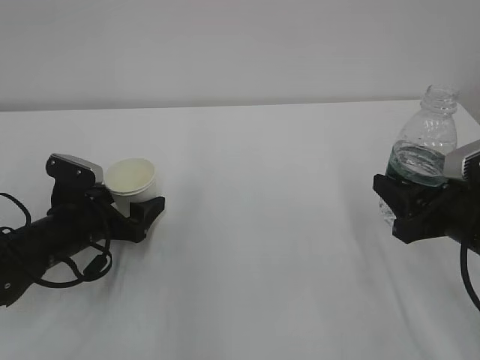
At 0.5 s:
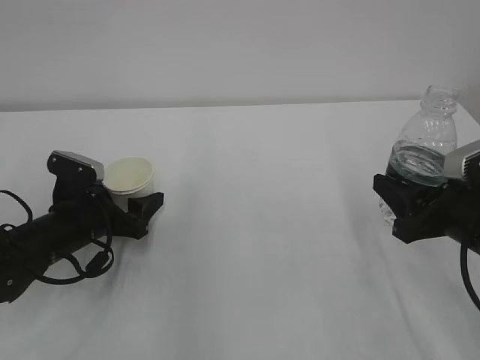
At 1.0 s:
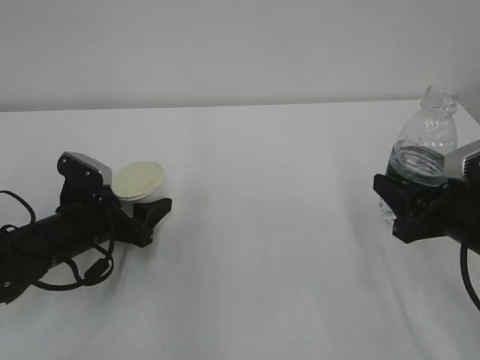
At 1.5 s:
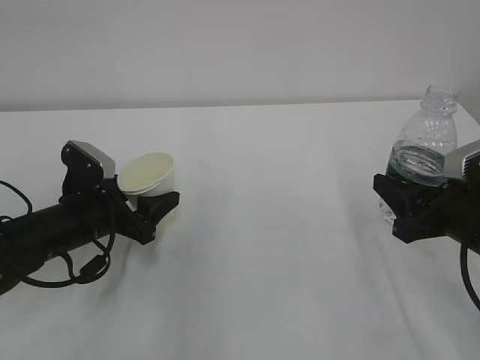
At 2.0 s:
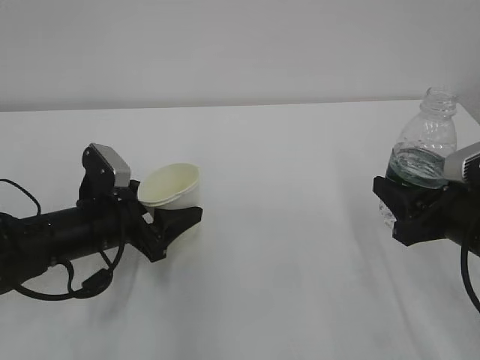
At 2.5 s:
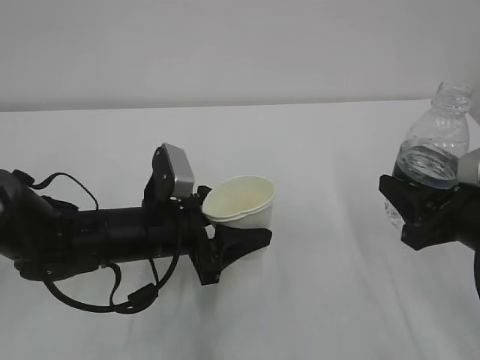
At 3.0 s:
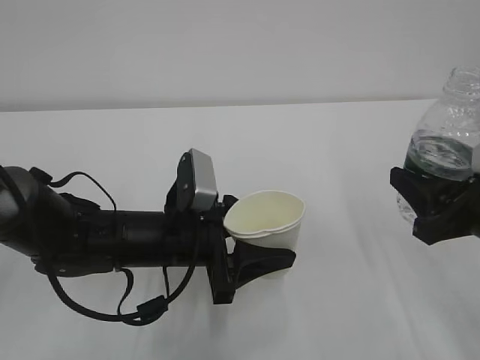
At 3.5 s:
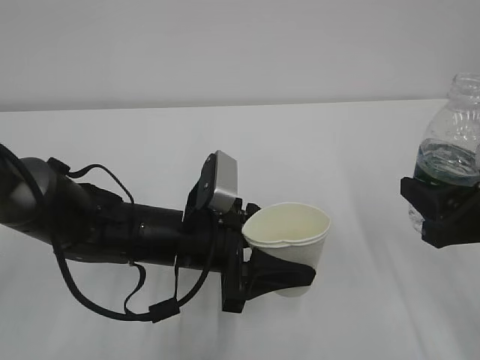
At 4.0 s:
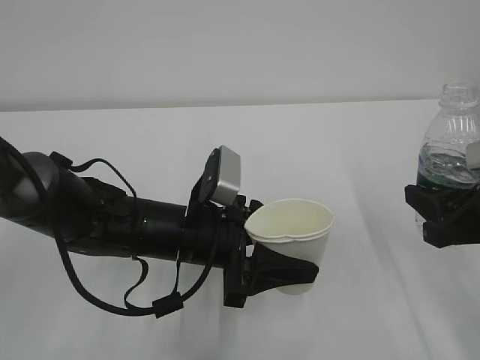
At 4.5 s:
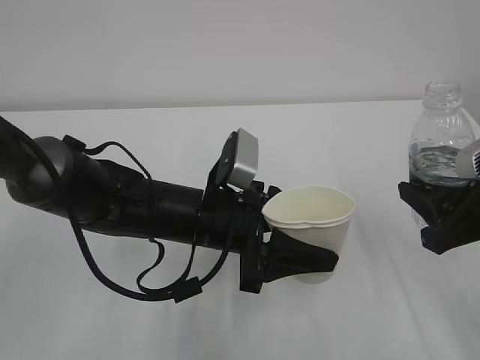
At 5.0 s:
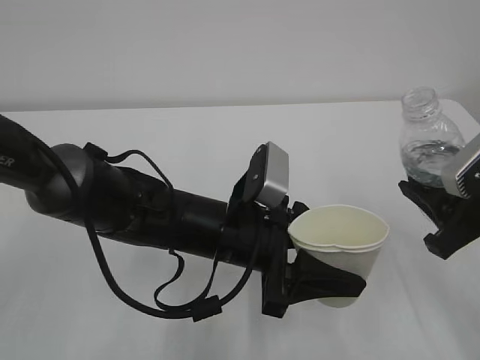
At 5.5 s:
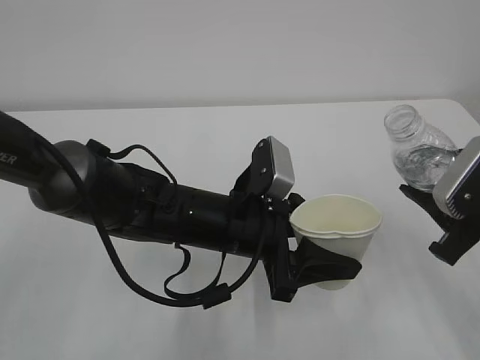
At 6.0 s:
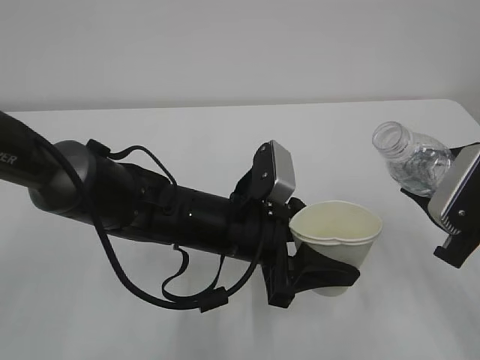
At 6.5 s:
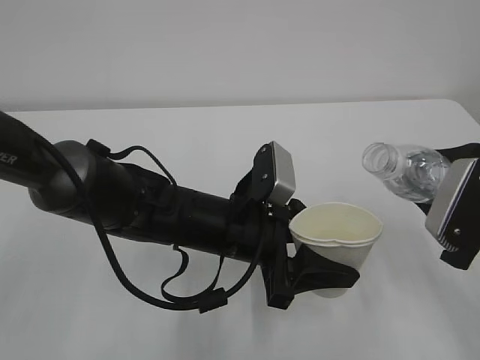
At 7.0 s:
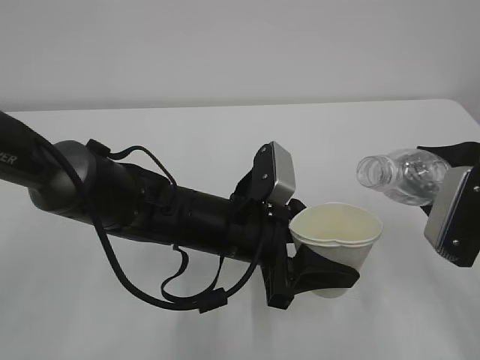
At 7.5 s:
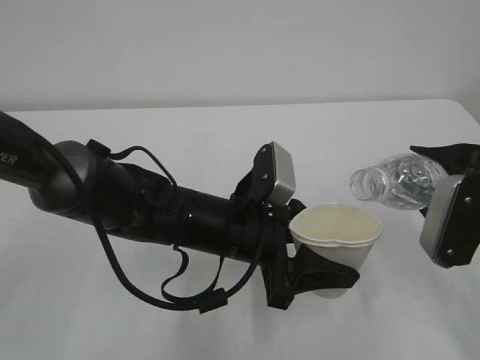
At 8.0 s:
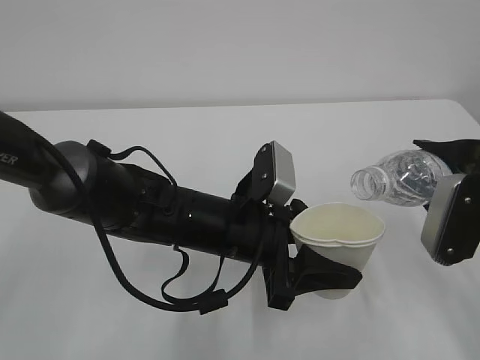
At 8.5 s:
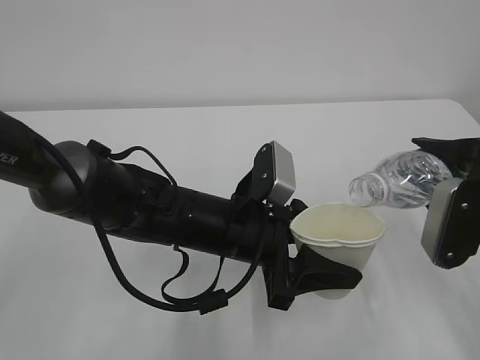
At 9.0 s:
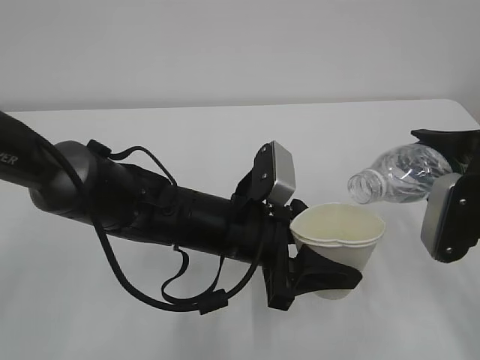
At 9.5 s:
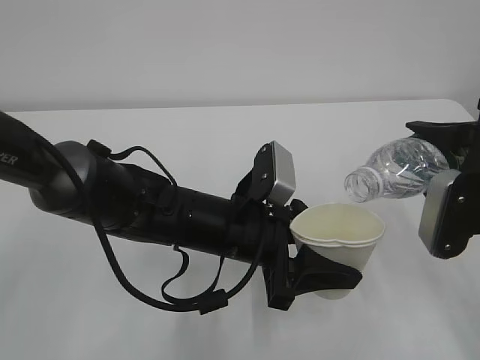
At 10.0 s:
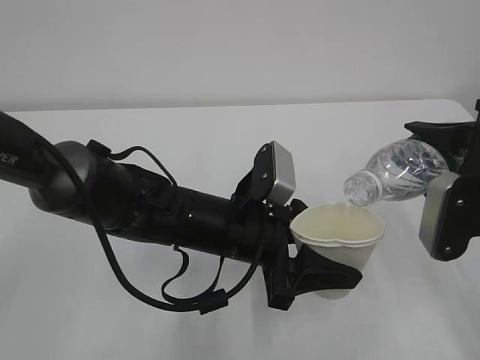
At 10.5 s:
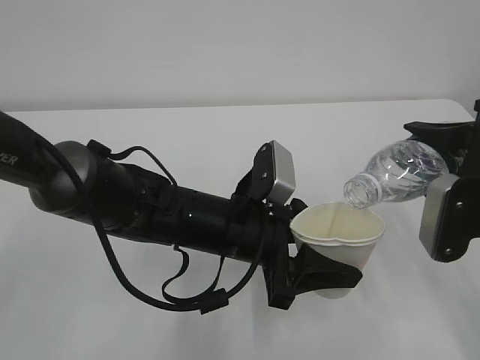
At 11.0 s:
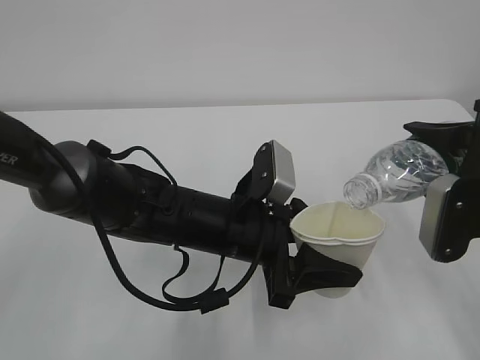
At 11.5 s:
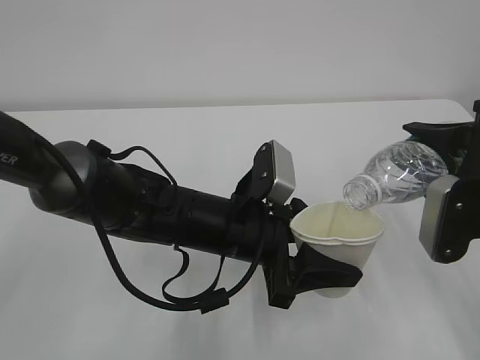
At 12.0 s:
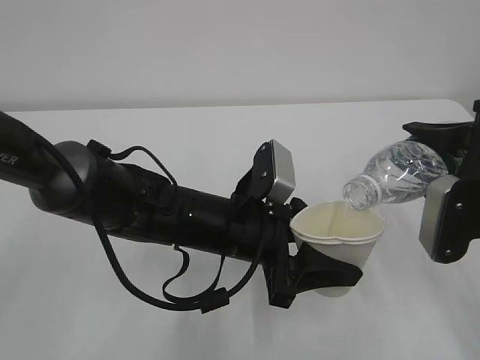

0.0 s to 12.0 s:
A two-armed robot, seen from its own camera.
0.0 to 2.0 s: The left gripper moves about 5 cm, and closes up.
2.0 to 4.0 s: The left gripper goes some 10 cm to the right.
8.0 to 10.0 s: The grippers stay close to where they were, moving slightly.
10.0 to 12.0 s: Both grippers stay put.

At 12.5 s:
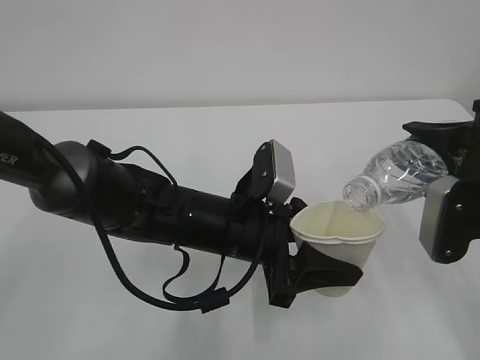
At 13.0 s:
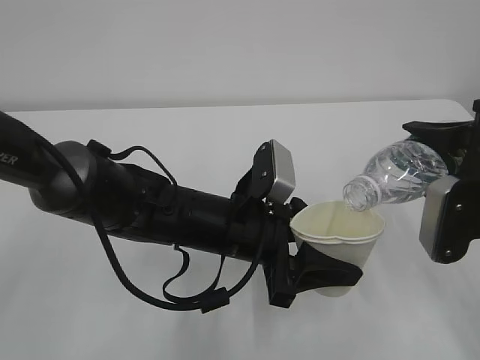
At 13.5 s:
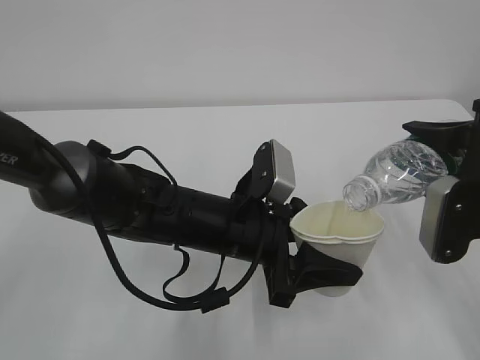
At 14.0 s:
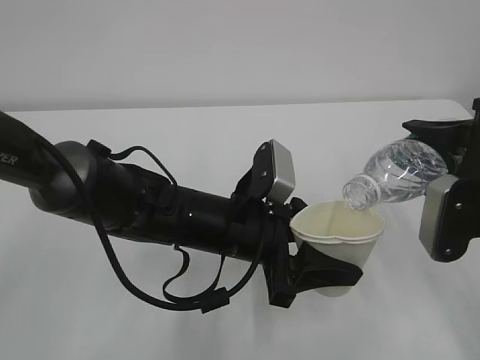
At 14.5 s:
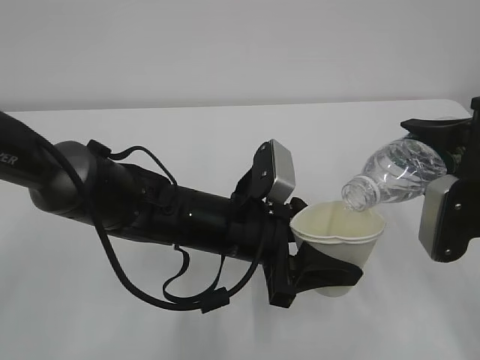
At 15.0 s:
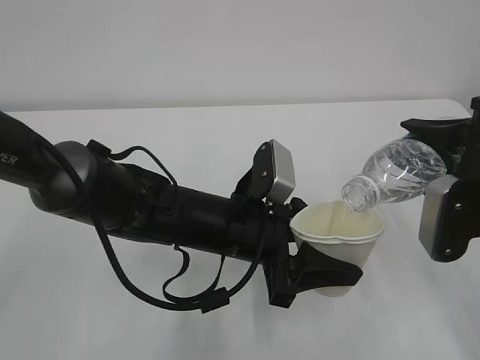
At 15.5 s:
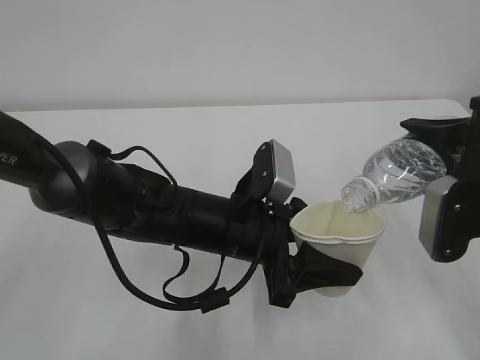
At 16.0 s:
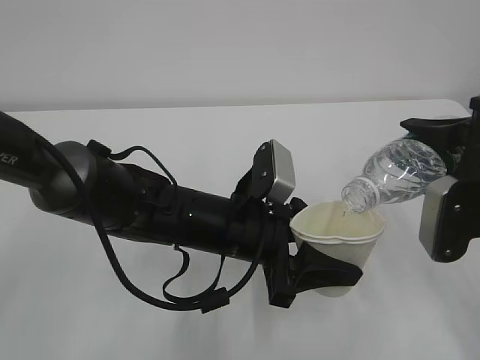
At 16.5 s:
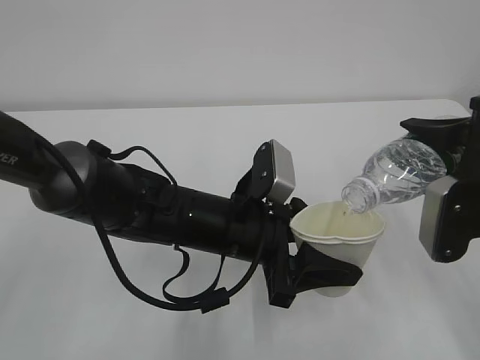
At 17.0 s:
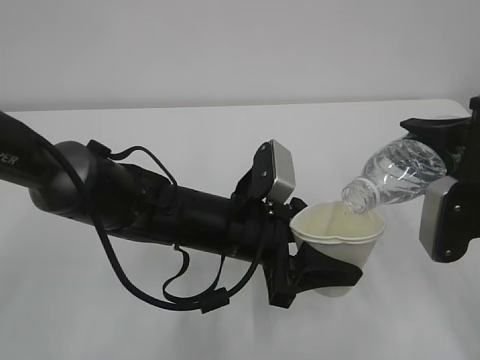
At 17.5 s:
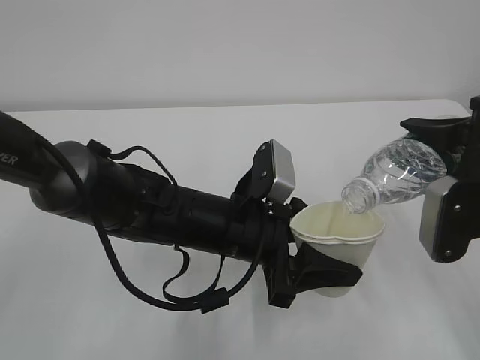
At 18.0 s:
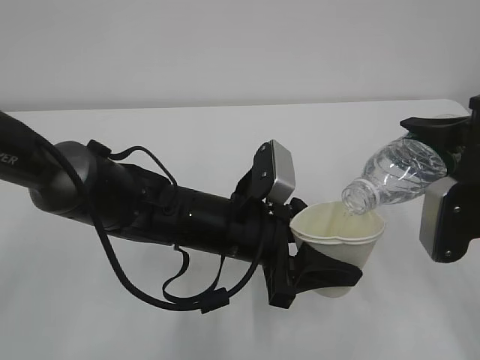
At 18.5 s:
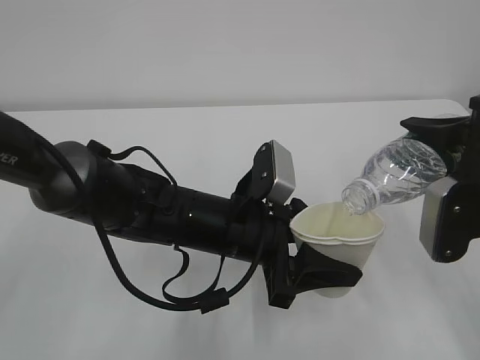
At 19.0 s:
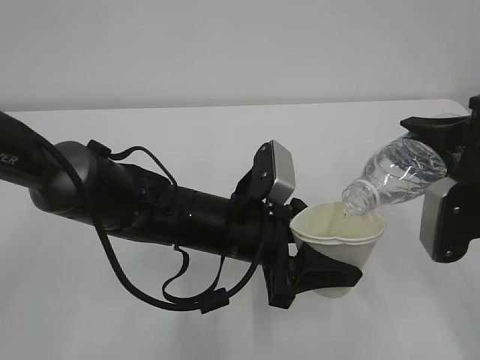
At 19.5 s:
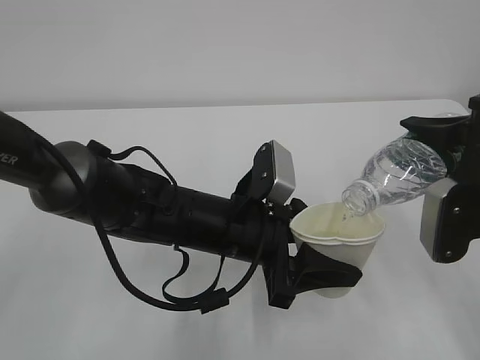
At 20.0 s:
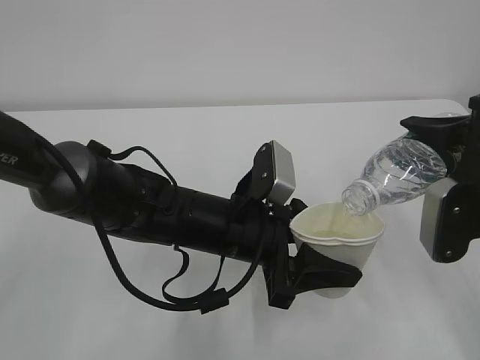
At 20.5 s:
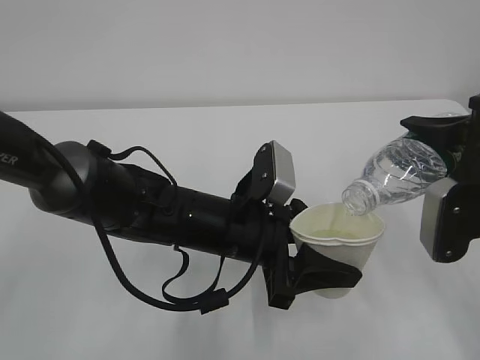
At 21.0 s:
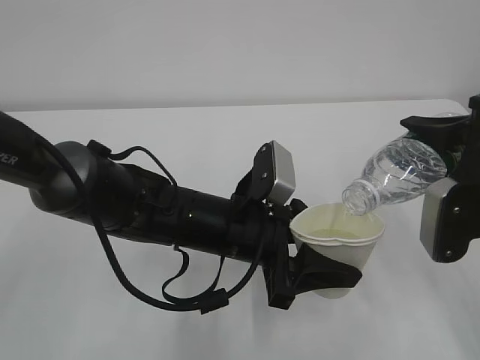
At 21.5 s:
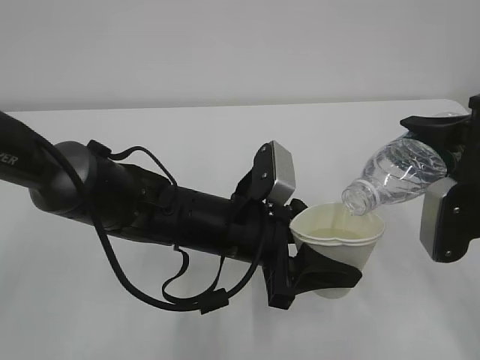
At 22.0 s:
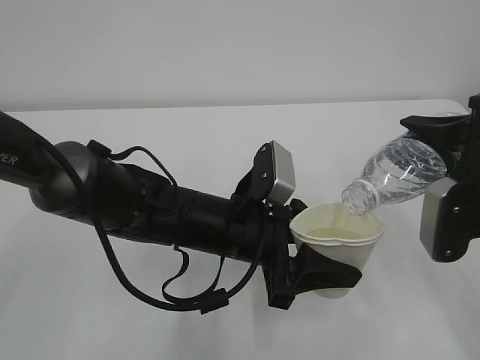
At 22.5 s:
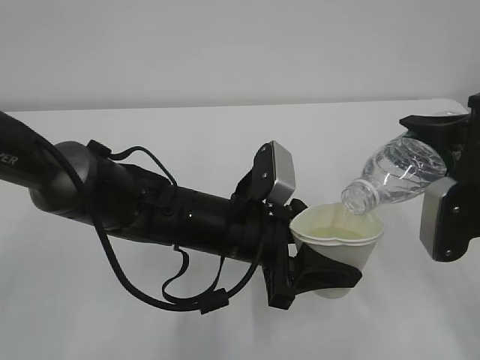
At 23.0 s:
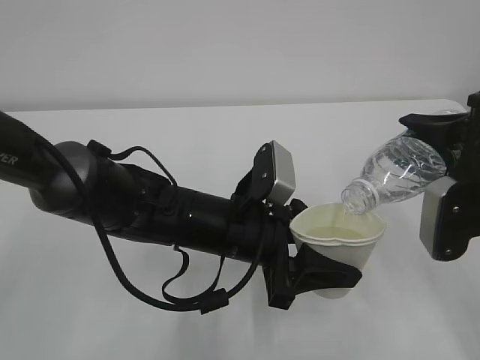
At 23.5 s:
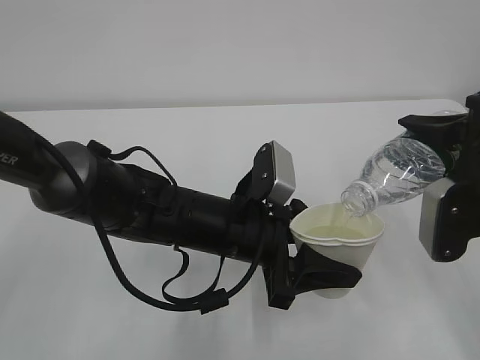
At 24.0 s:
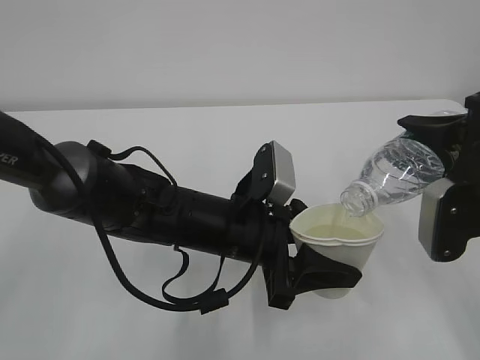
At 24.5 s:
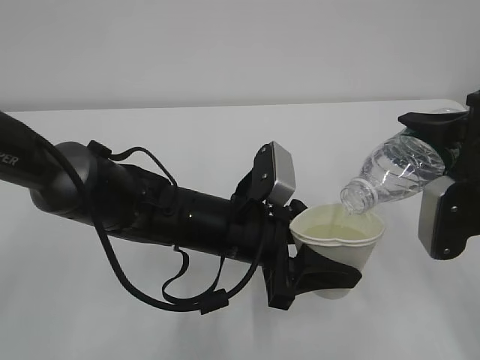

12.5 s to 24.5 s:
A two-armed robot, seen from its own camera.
12.5 to 18.5 s: Neither gripper changes place.
18.5 to 24.5 s: Neither gripper changes place.

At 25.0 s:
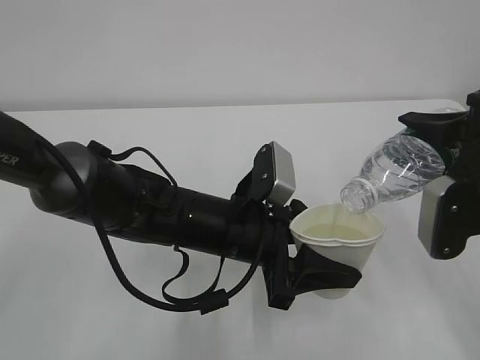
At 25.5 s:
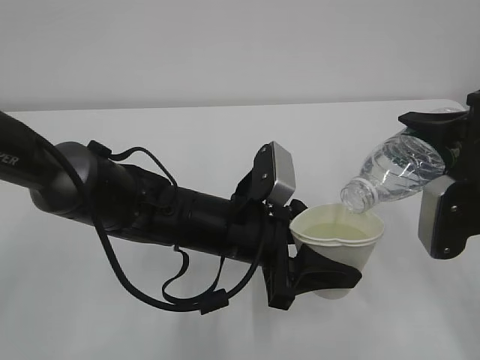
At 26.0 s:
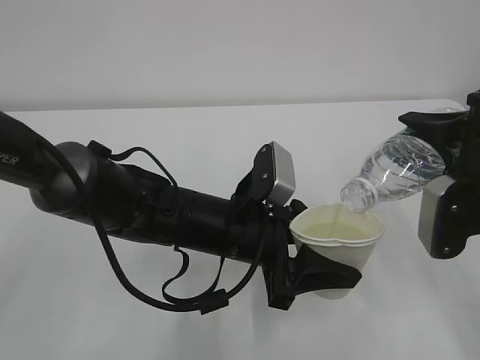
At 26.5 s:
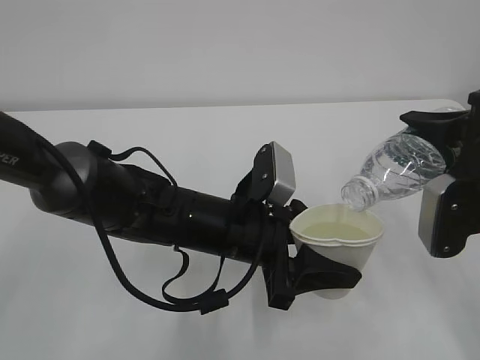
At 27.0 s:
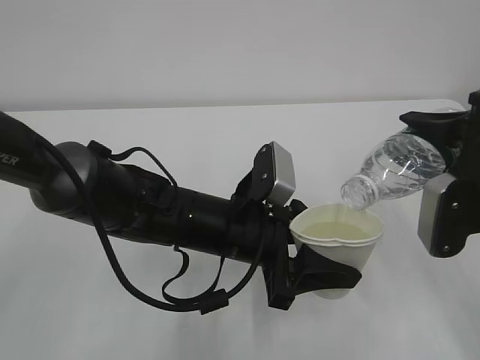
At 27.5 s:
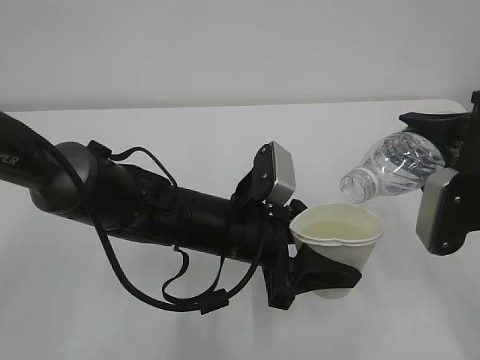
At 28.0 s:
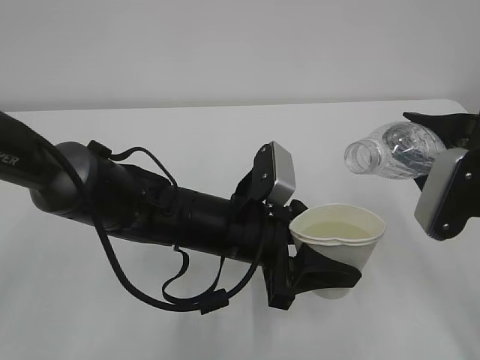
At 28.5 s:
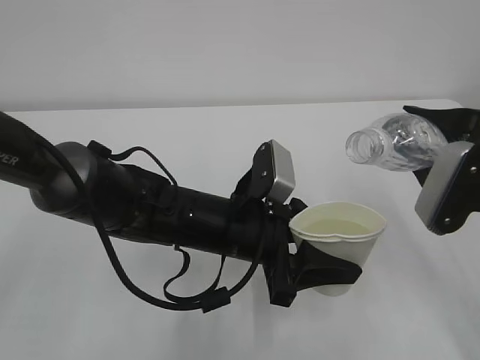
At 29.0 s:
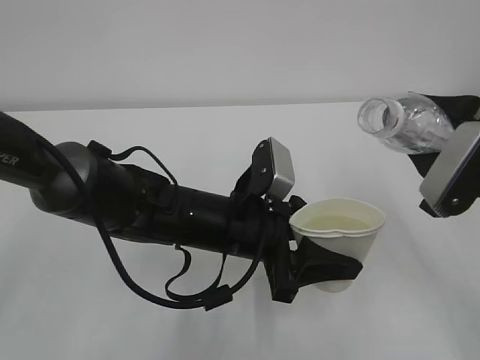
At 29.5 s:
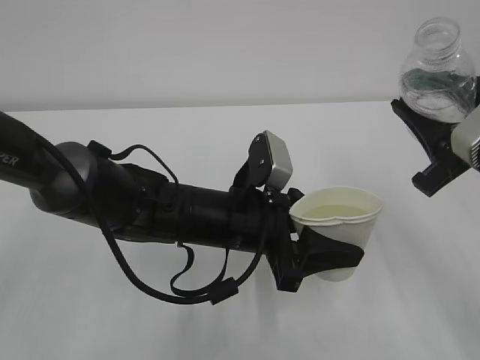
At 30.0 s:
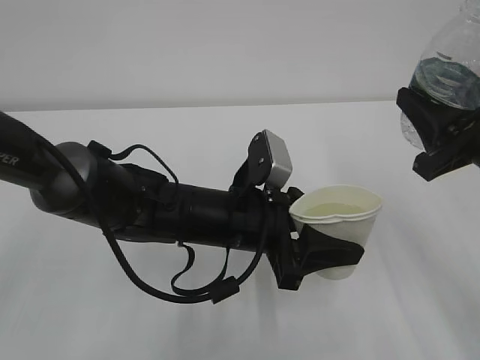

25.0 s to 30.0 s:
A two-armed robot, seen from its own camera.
25.0 to 27.5 s: The grippers make only small movements.
